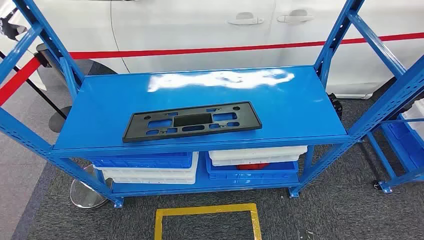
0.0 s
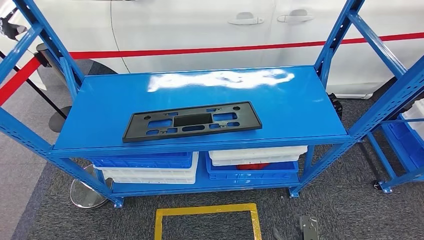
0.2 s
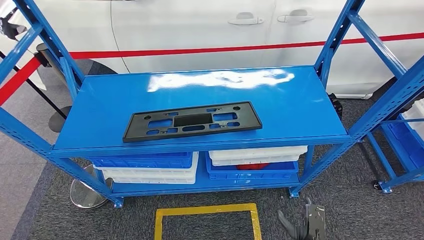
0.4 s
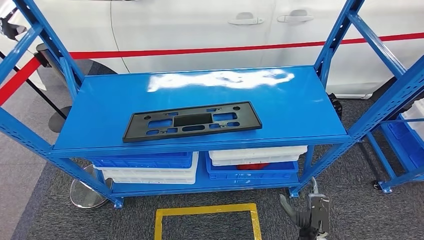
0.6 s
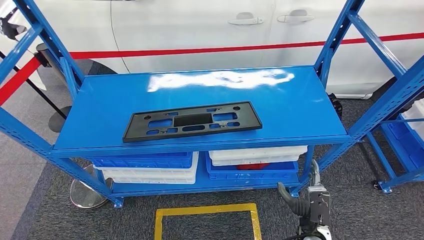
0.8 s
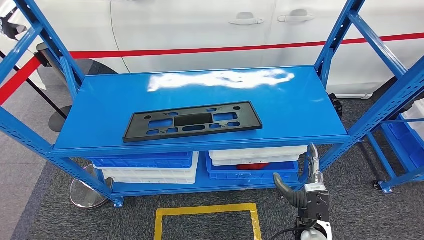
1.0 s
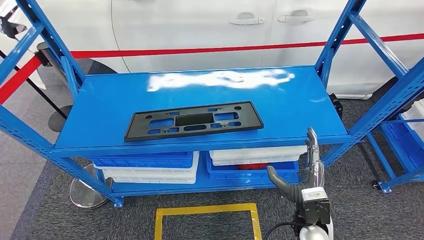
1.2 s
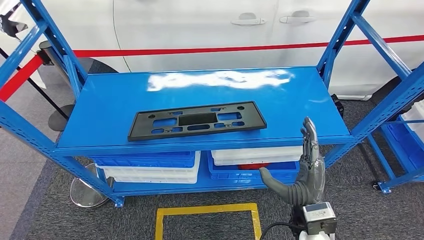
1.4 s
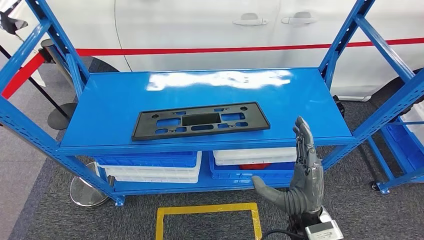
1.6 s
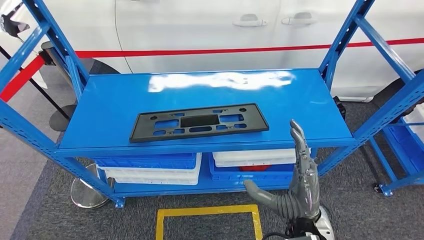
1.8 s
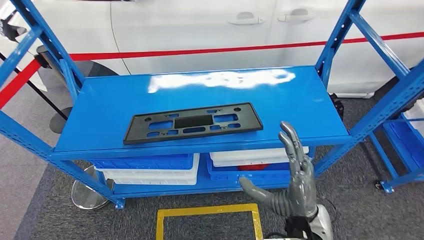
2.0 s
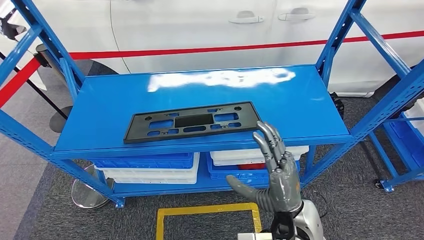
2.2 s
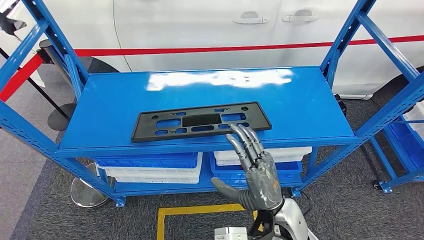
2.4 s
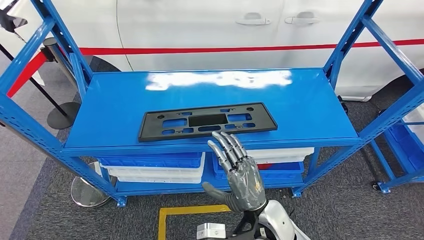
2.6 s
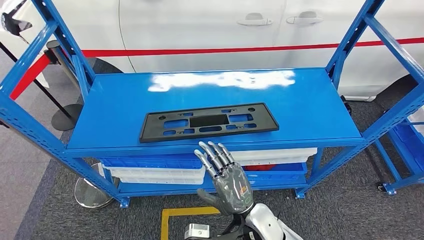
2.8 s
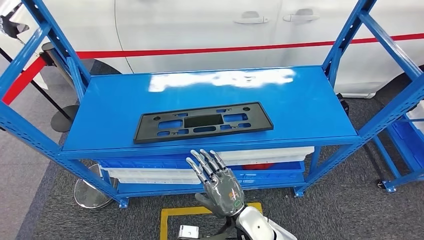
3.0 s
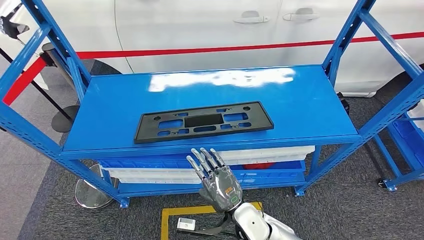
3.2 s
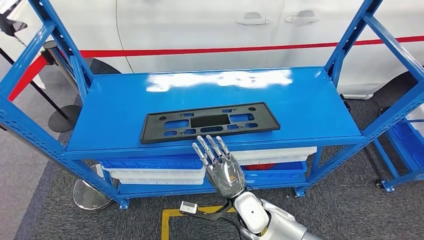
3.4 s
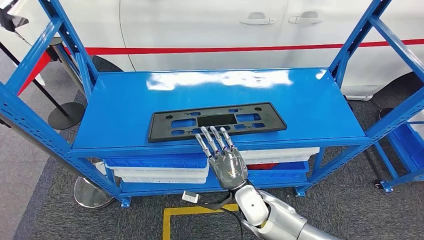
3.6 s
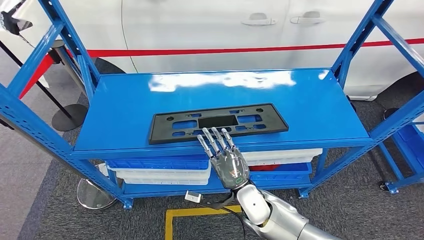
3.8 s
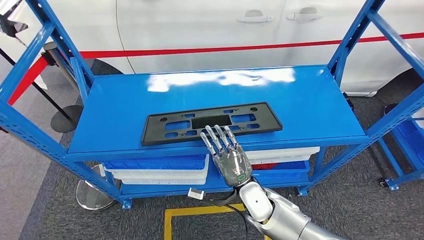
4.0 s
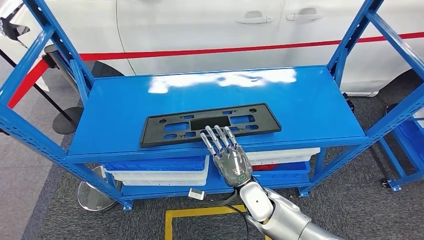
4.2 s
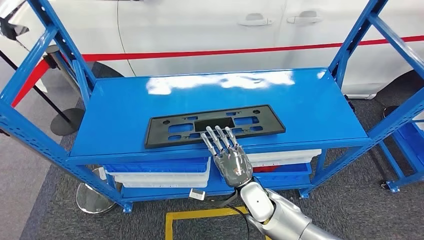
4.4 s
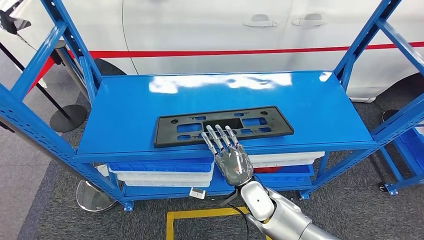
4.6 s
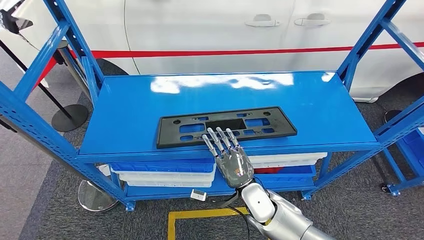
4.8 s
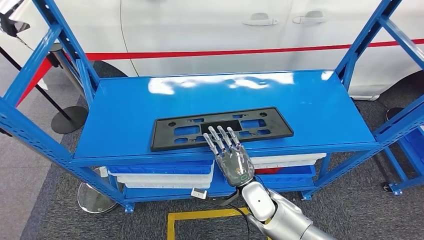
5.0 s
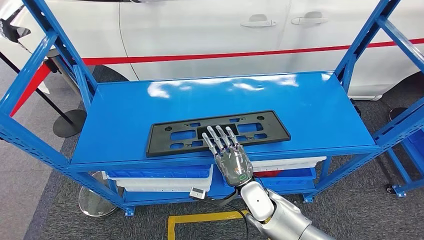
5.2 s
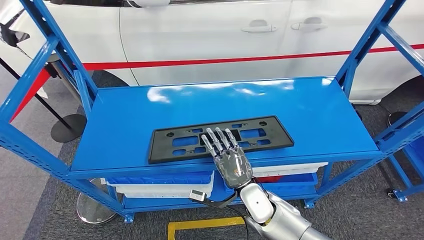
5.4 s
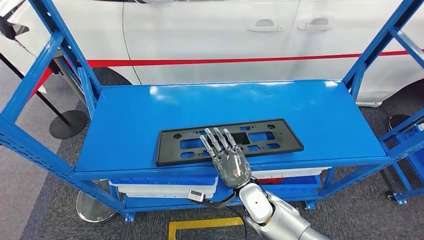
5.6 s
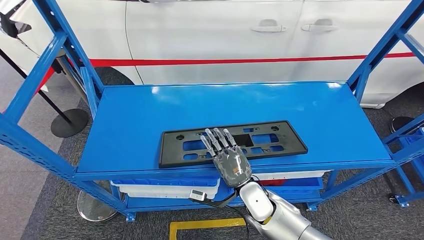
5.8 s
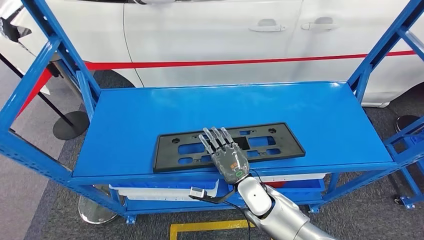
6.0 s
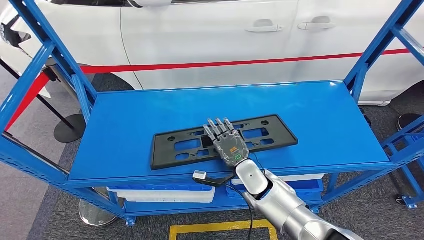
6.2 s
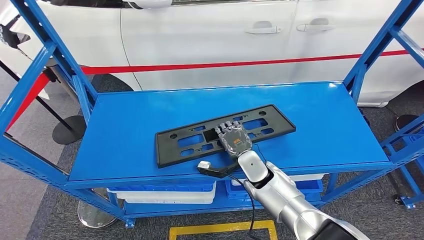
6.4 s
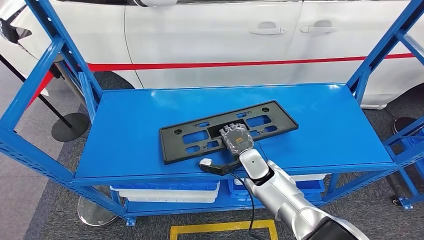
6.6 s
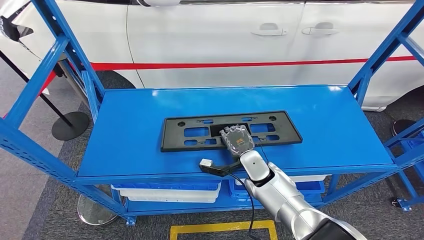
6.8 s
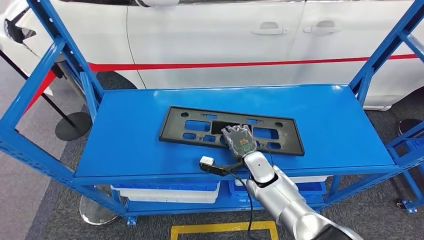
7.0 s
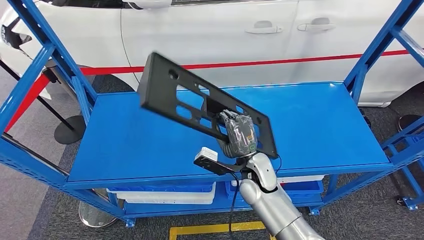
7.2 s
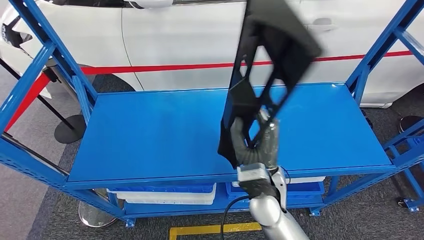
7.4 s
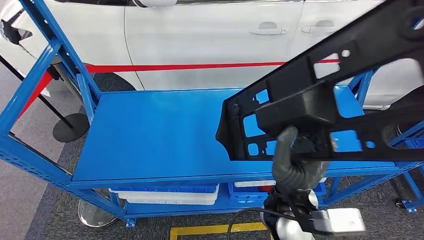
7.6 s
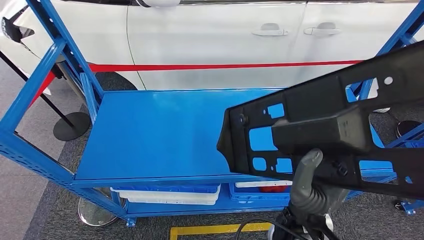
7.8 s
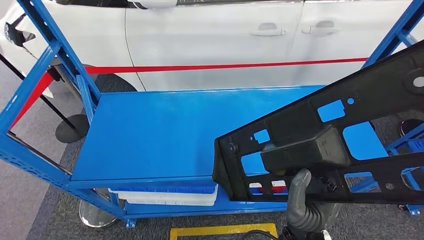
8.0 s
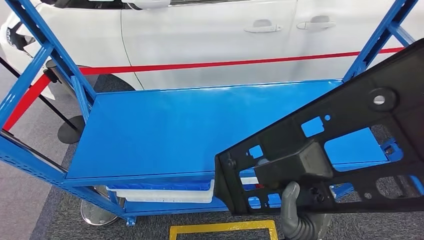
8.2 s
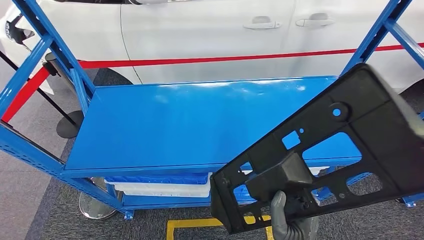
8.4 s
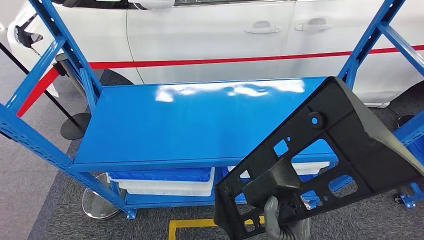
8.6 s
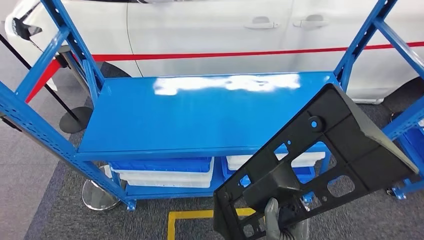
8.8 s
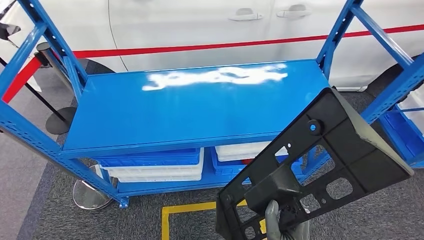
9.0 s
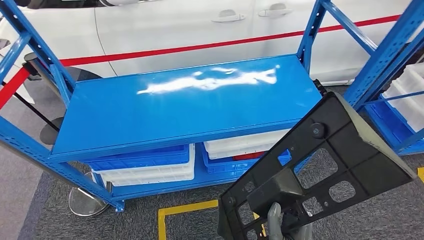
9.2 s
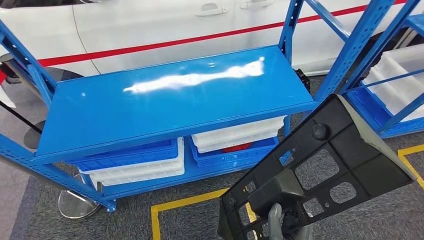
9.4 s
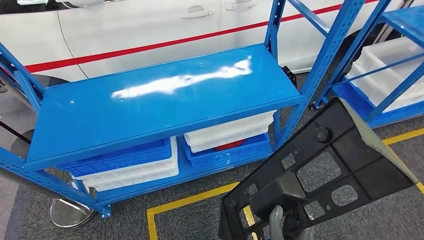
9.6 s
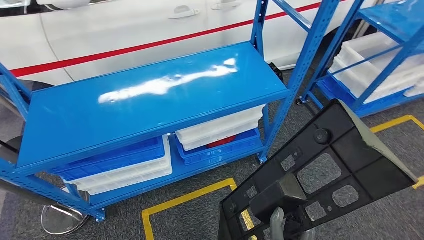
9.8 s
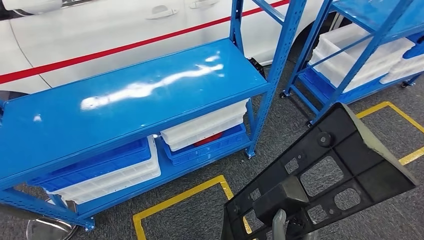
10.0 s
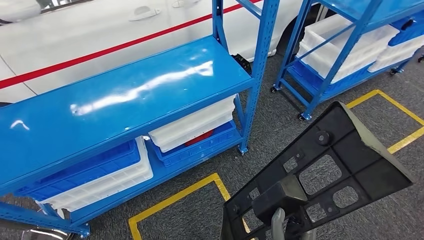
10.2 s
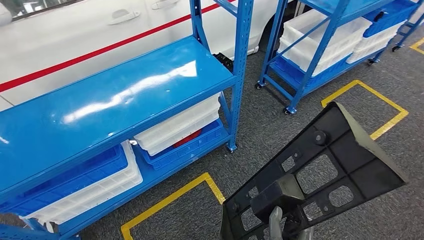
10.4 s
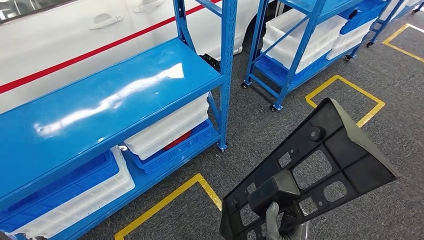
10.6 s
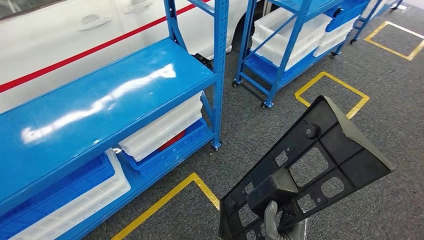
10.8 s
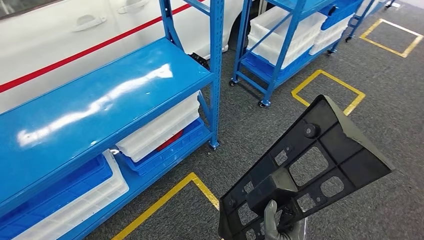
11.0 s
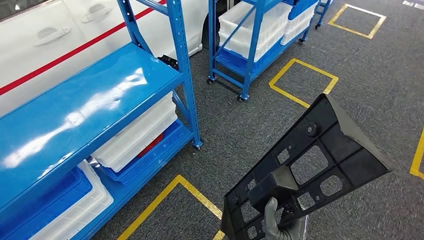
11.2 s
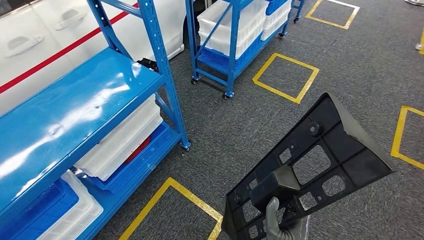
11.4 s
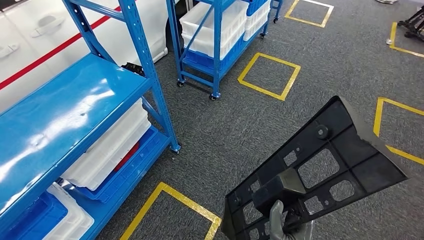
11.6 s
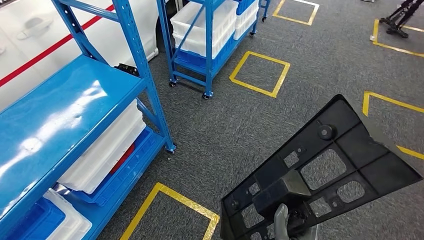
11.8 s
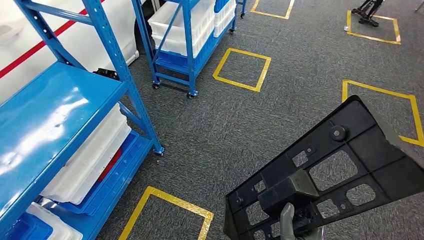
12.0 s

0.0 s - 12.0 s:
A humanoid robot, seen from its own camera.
Step, 0.0 s - 8.2 s: Pick up the large material from the shelf.

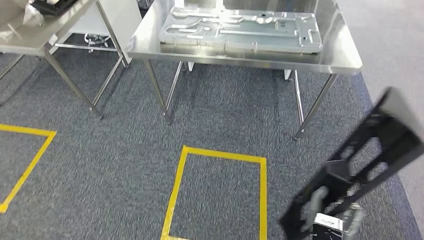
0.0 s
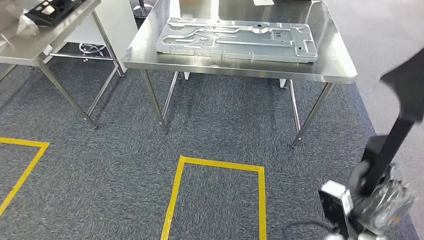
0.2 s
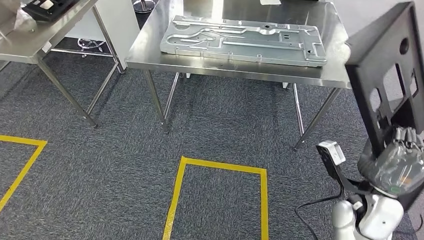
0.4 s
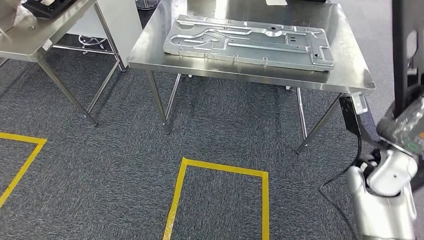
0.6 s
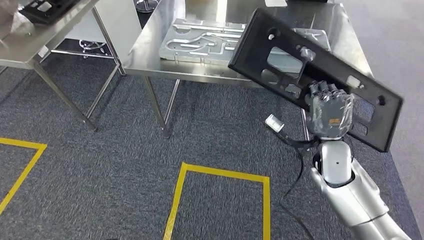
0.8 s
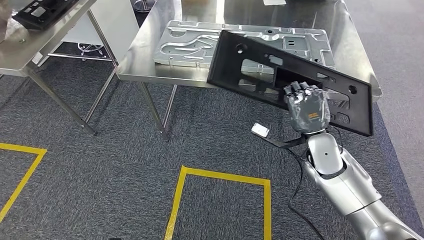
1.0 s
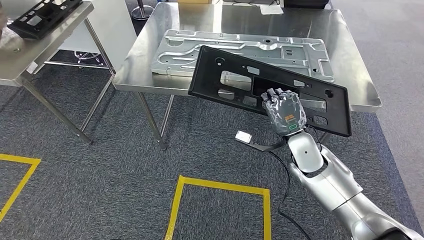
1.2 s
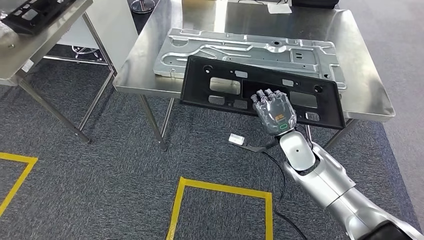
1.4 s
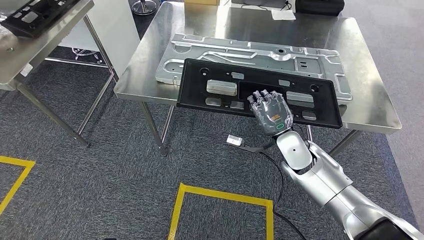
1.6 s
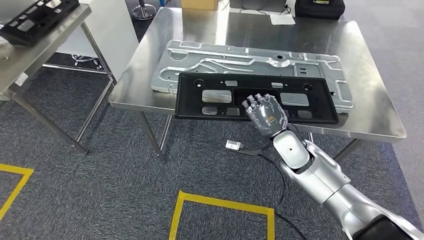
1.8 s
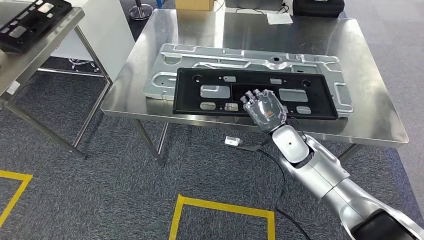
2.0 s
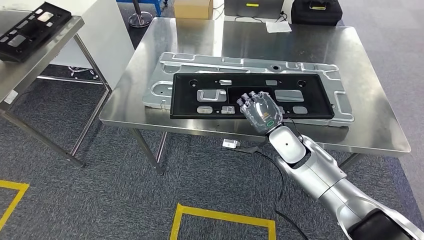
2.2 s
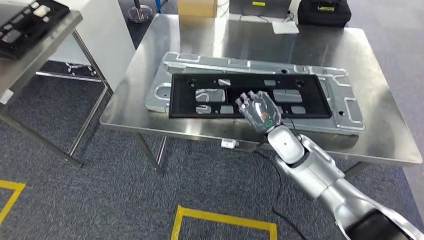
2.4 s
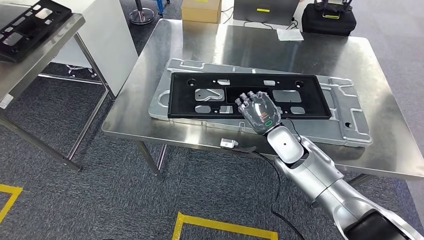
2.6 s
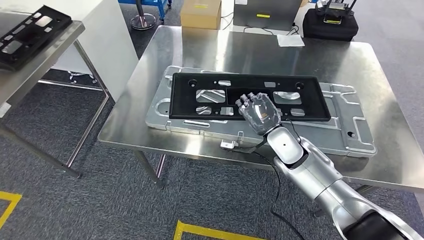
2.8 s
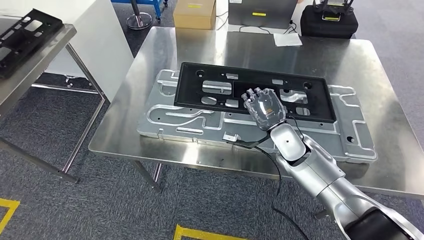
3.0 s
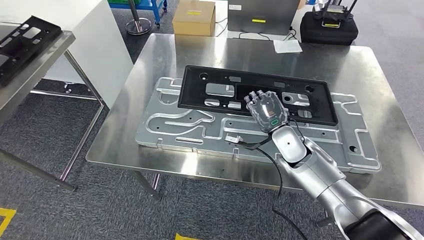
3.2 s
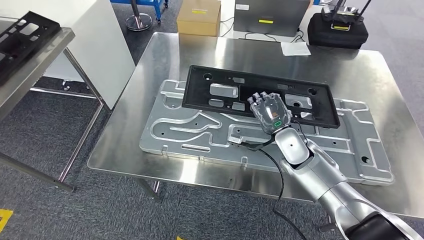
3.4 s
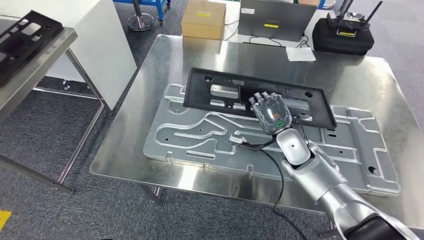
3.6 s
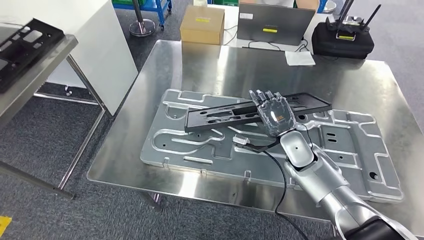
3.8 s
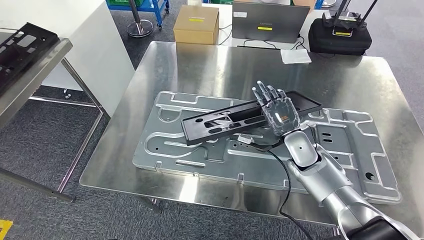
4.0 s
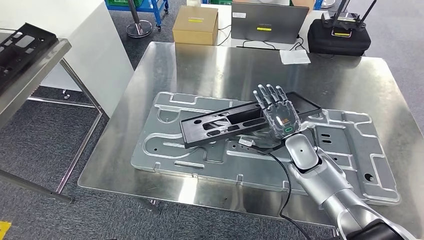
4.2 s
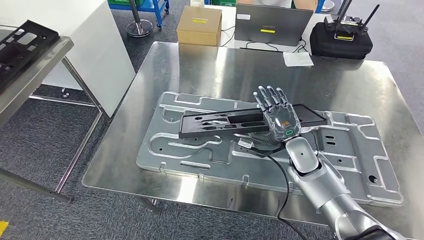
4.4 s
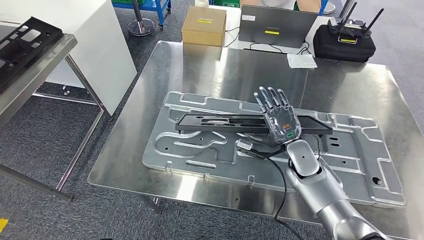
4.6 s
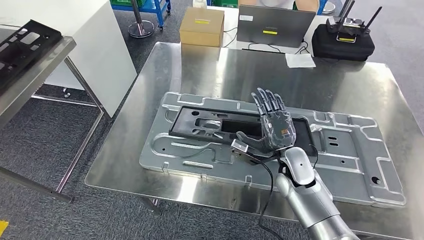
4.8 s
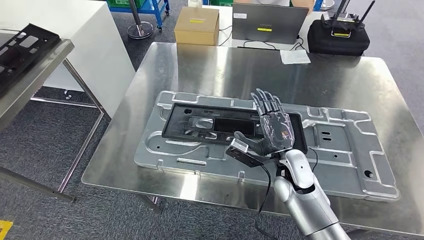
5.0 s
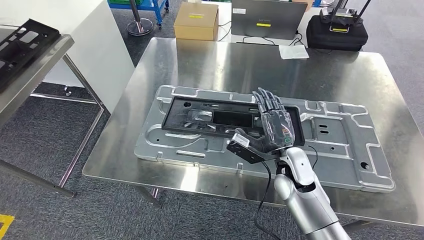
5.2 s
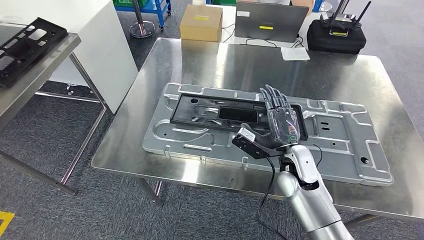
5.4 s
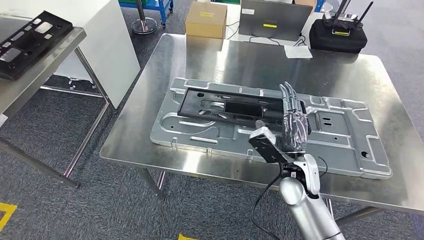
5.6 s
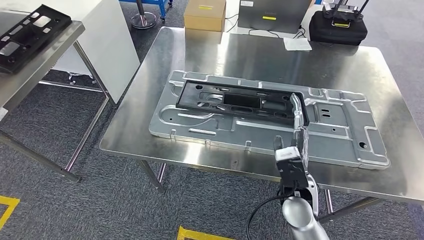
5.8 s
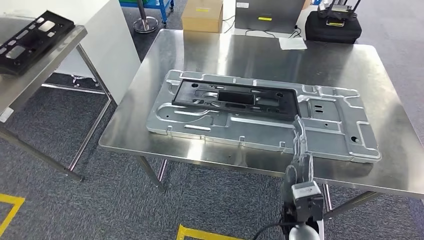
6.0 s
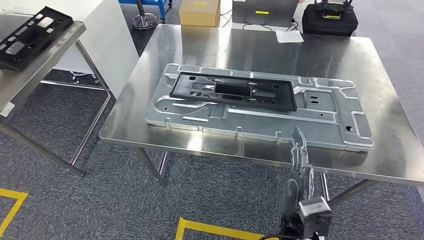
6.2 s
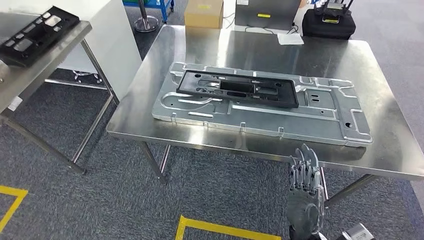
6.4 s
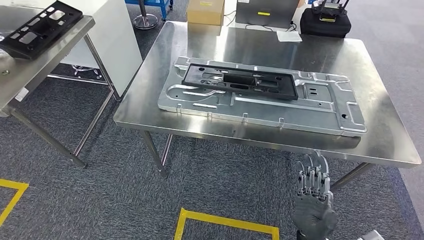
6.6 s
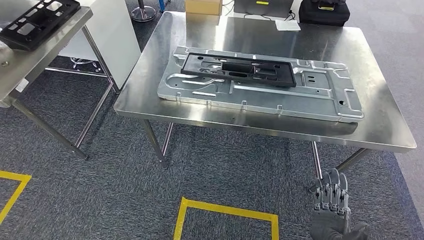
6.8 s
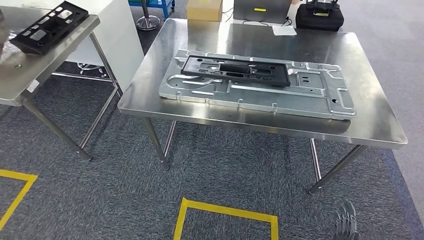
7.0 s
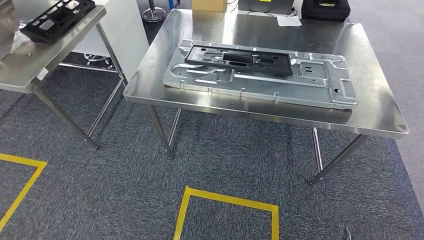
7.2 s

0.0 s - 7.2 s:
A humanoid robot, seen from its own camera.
Step, 0.0 s - 2.4 s: Move the large material to the workbench.
Step, 2.6 s - 7.0 s: Insert the large material into the corresponding slot on the workbench.
